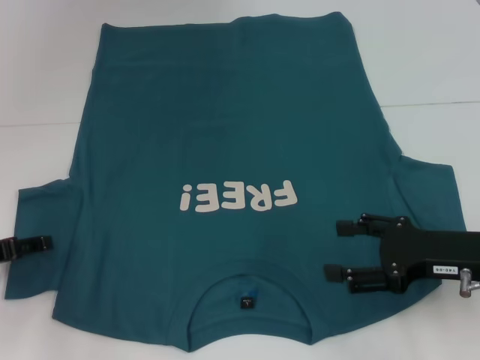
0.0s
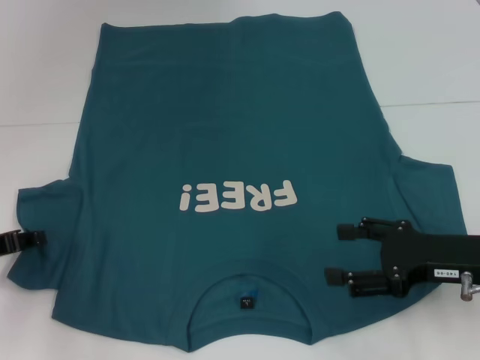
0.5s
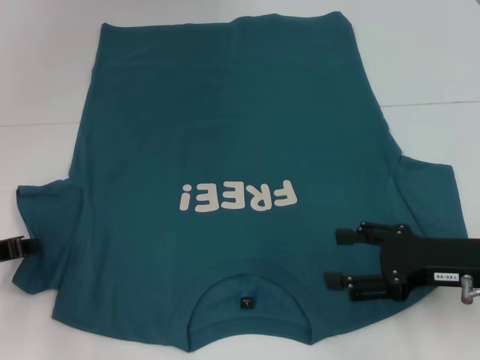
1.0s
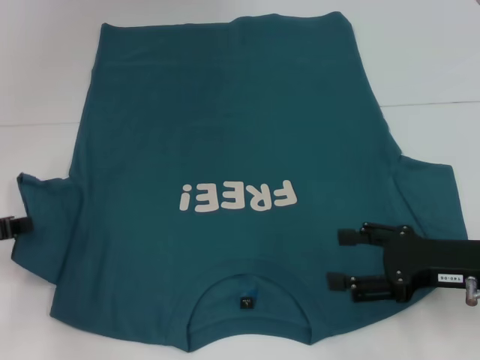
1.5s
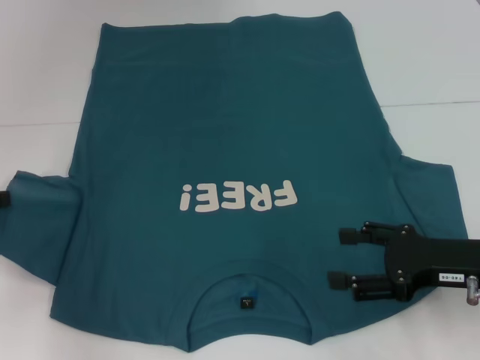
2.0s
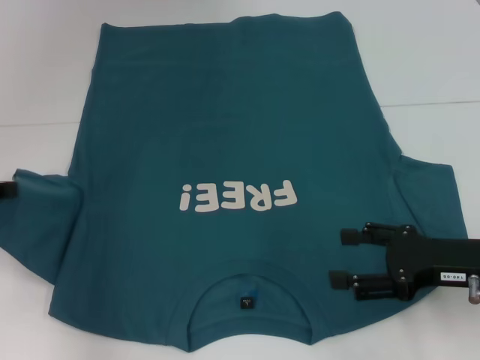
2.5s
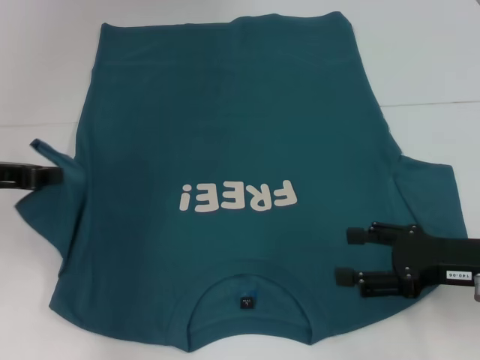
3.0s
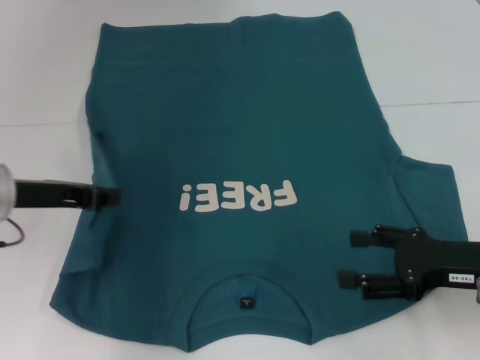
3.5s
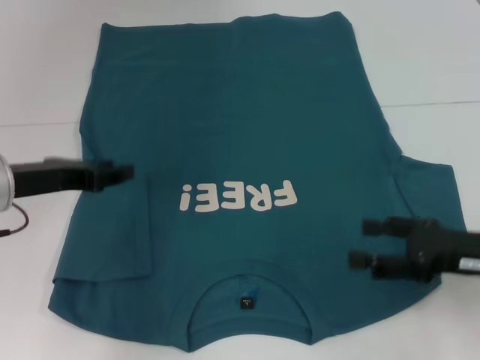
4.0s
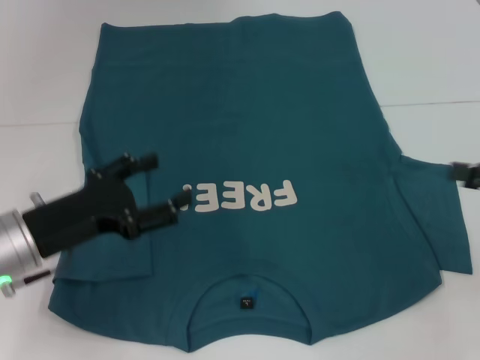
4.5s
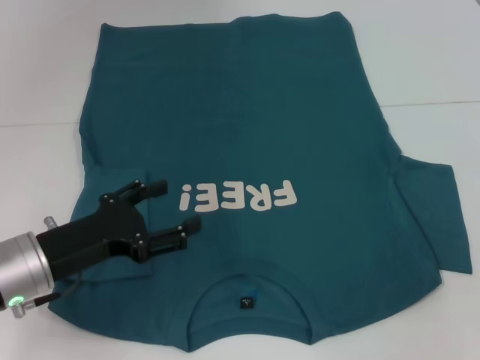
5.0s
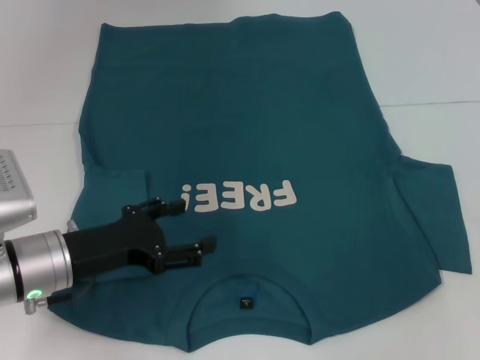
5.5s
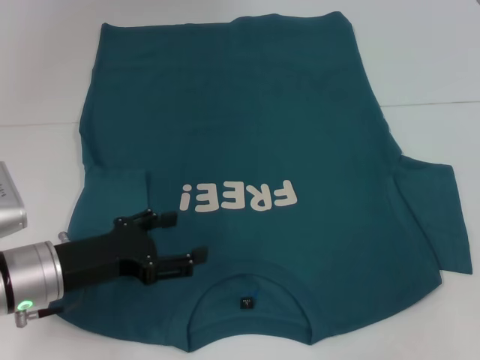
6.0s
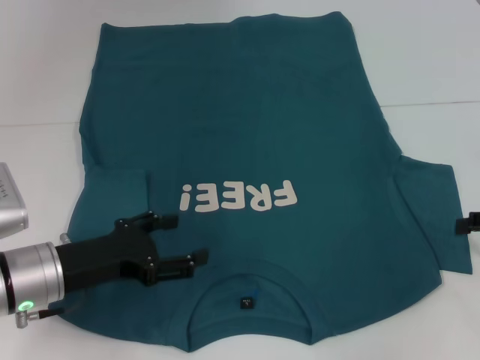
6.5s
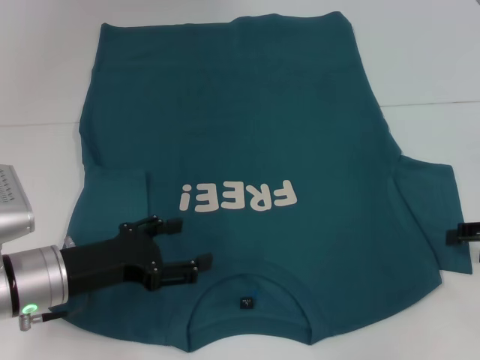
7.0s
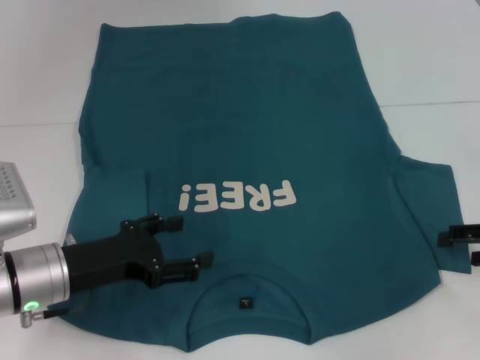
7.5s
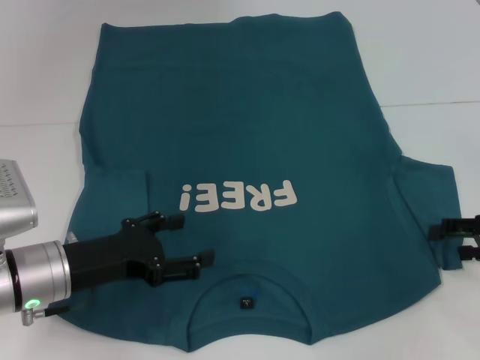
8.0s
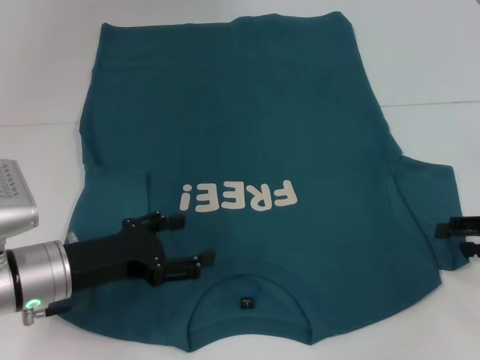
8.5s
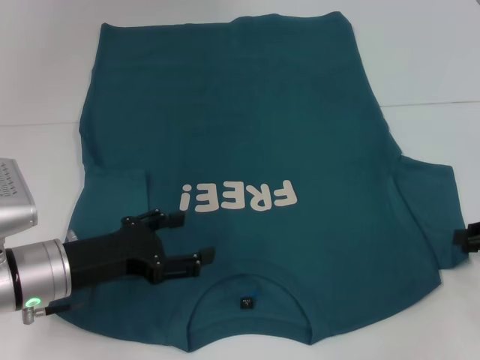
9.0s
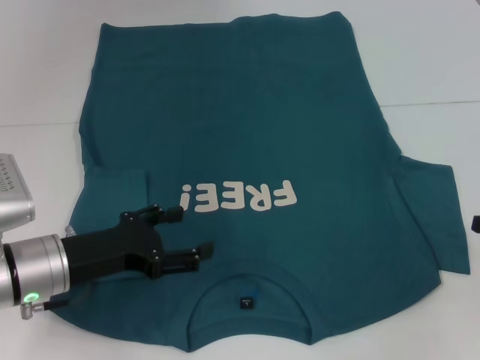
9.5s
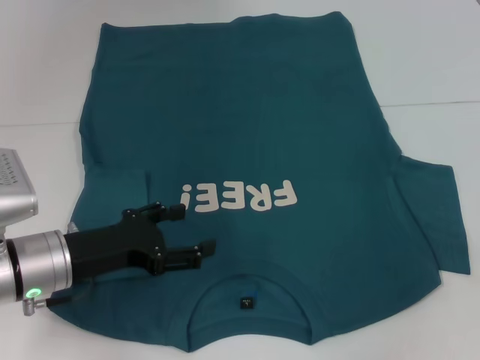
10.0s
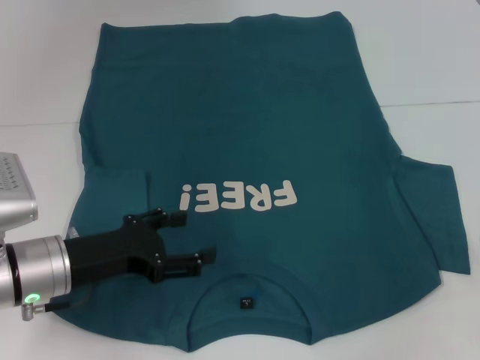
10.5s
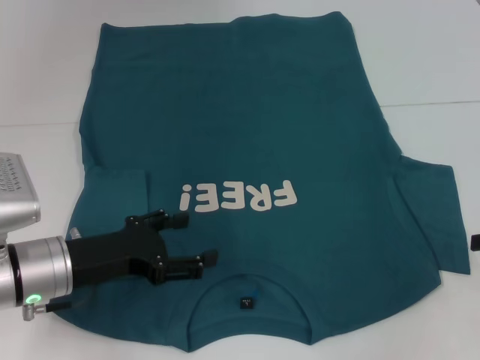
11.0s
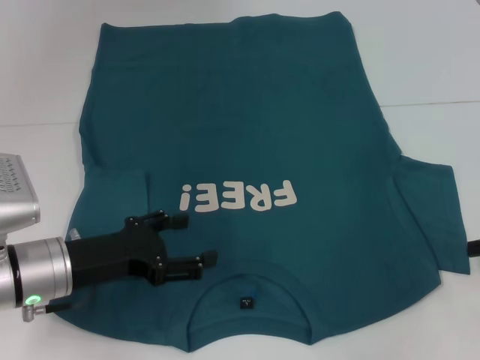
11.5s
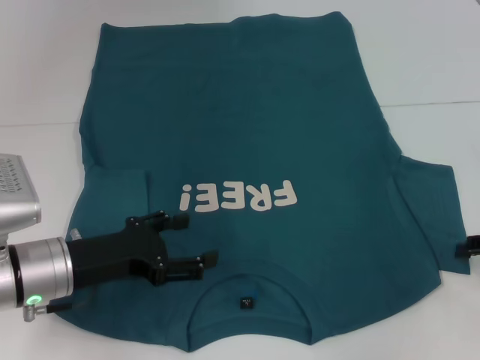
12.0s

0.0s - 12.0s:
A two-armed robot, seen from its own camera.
Step, 0.0s - 3.5s: Fold the bottom left sleeve with your left hand.
0.0s - 2.0s: The left gripper heads upward, covering some 5 cm, and closes its fingers.
2.0s - 4.0s: The left gripper travels to the right by some 10 cm.
4.0s - 6.0s: The left gripper travels downward and backward by roughly 10 cm, and opens up, while the right gripper shifts some 10 cm to the right.
6.0s - 8.0s: The right gripper shifts by some 5 cm.
8.0s - 10.0s: The right gripper ends up approximately 5 cm from where it was, and closes up.
10.0s - 12.0s: The right gripper opens its fingers.

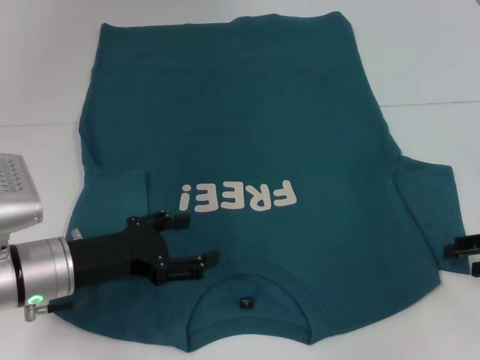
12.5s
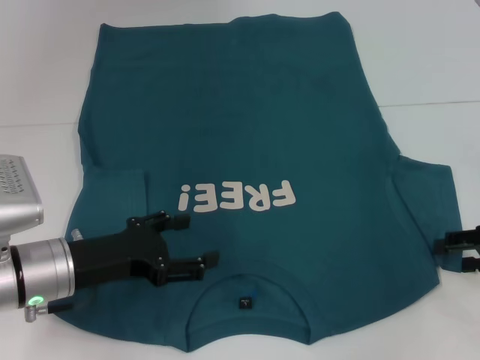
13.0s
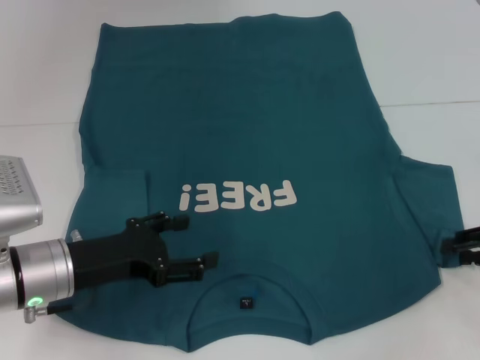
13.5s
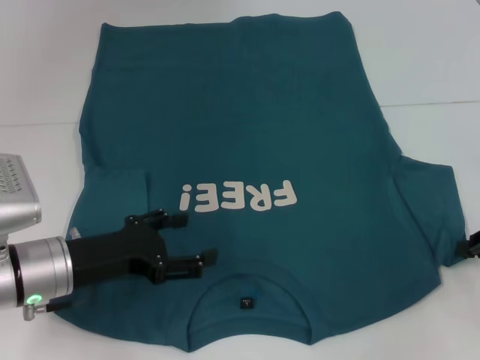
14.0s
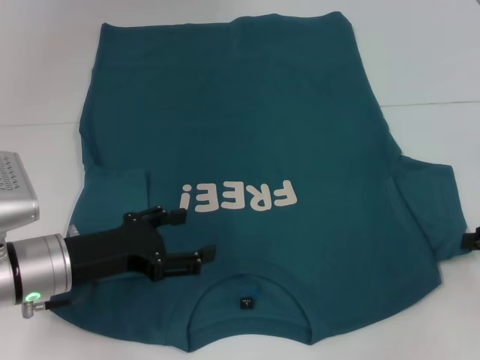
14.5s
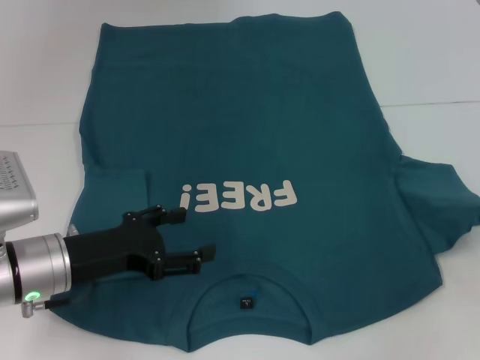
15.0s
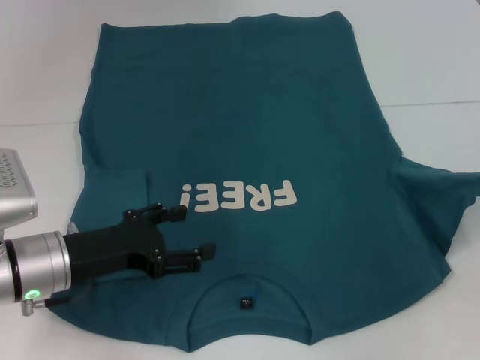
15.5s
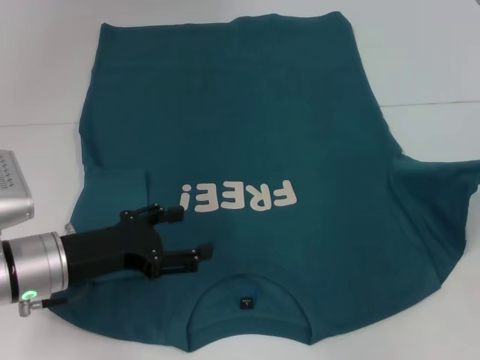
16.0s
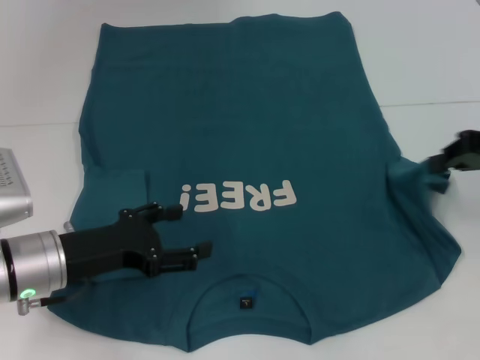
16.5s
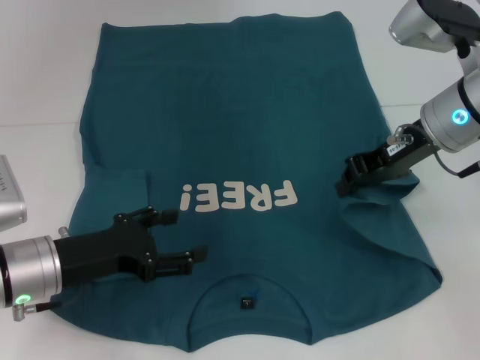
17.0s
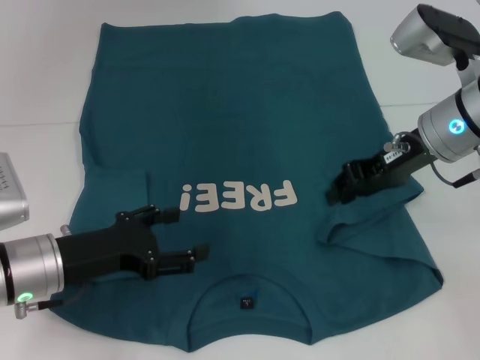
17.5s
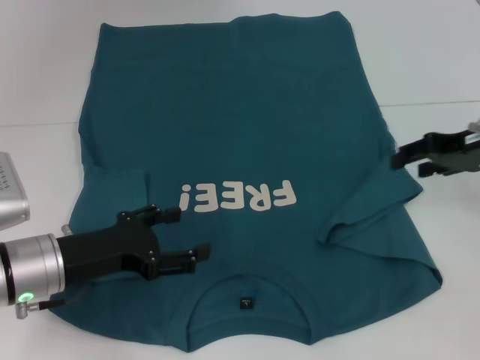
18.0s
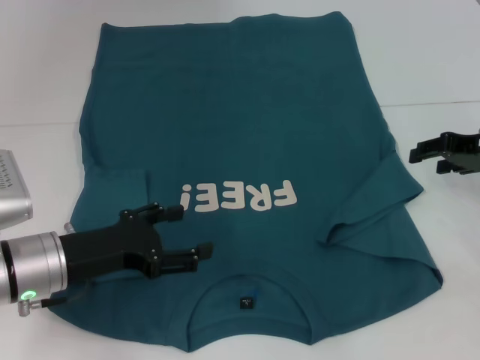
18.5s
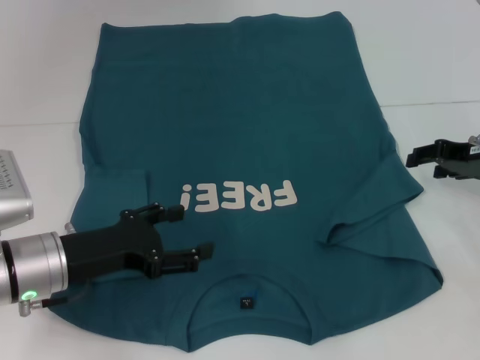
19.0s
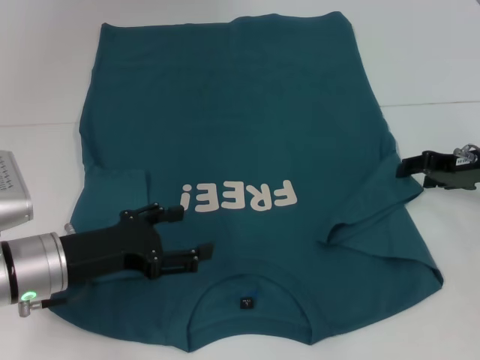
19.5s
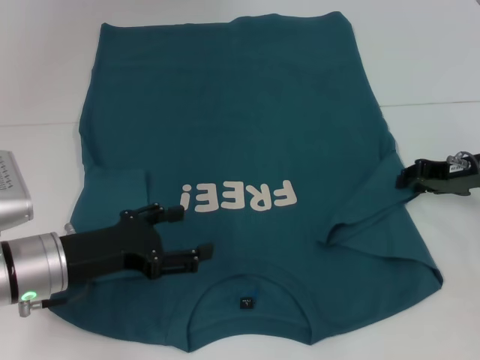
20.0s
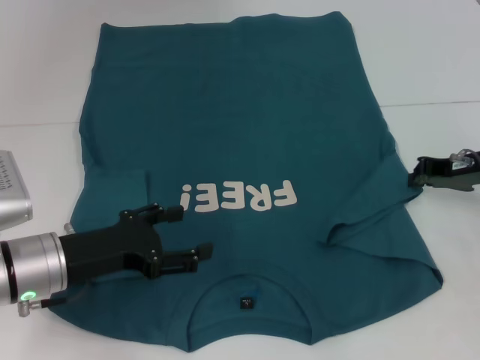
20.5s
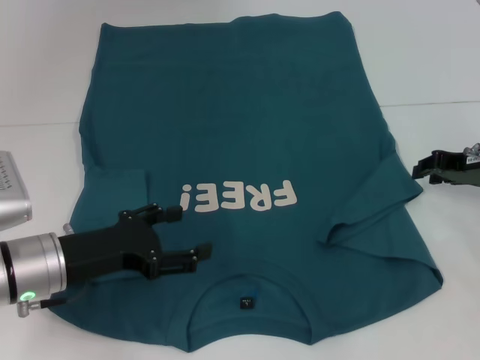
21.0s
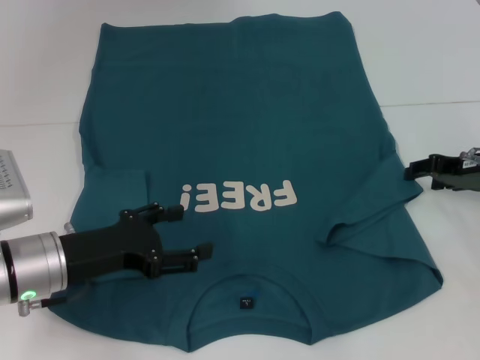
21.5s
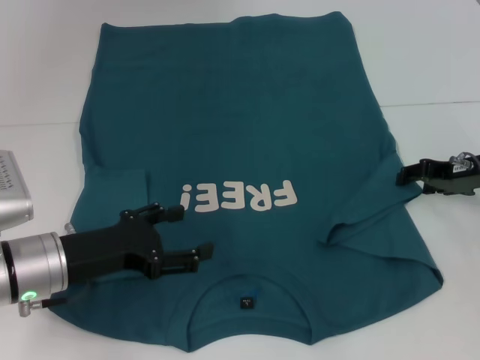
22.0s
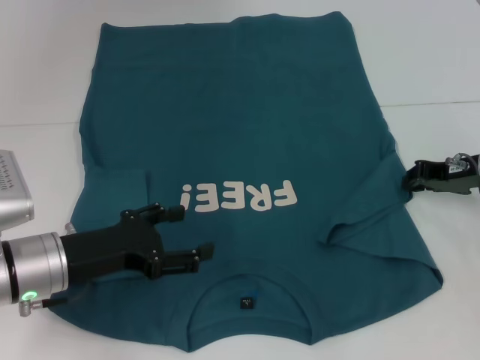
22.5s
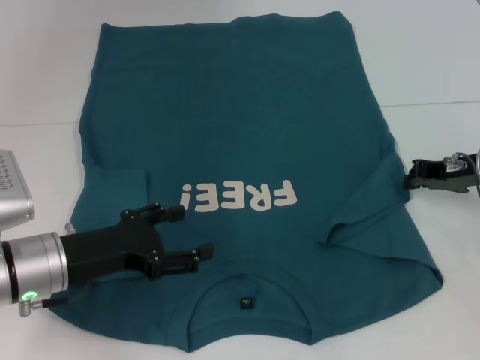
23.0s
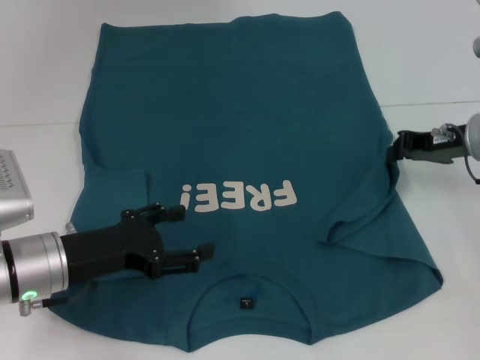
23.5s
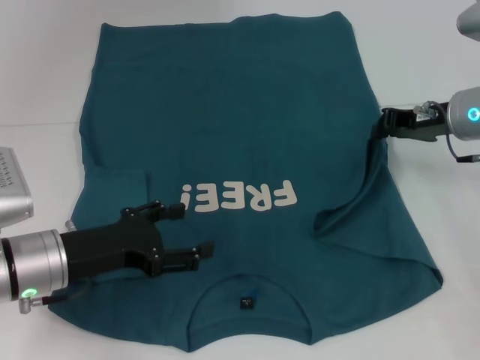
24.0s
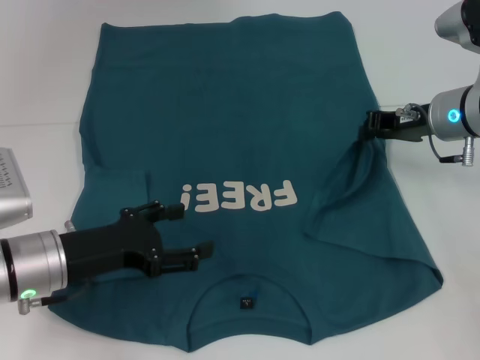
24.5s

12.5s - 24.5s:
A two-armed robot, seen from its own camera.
12.5s - 14.5s: The right gripper closes up.
14.5s - 16.5s: The right gripper shifts approximately 15 cm upward, forward and to the left.
16.5s - 18.5s: The right gripper goes approximately 5 cm downward, travels to the left and back again, about 10 cm each way, and opens its fingers.
18.5s - 20.5s: The right gripper closes its fingers.
20.5s - 22.5s: Both grippers stay about where they are.
22.5s - 24.5s: The right gripper goes about 5 cm to the left, and closes up.

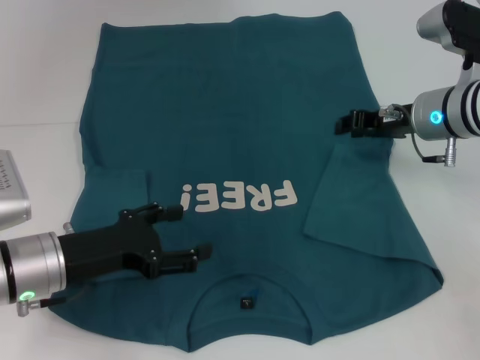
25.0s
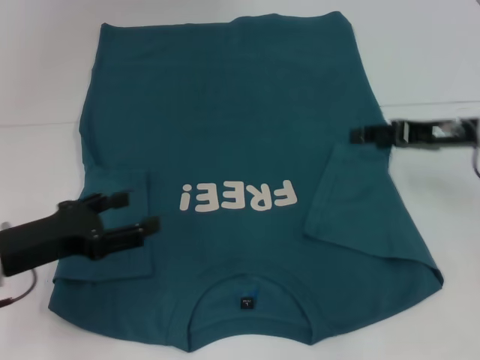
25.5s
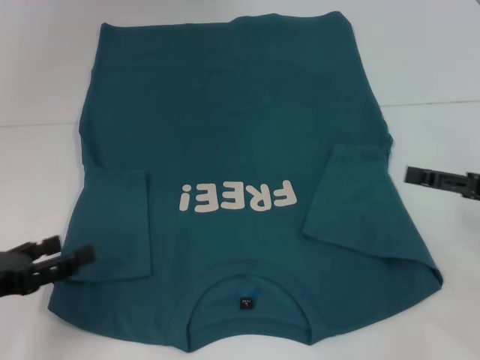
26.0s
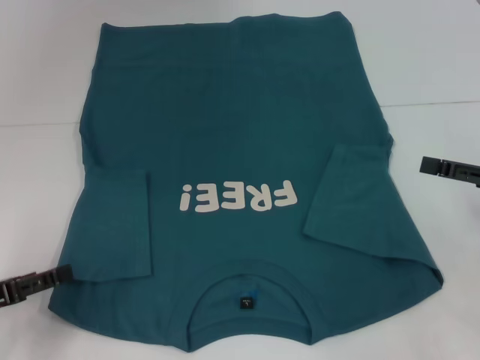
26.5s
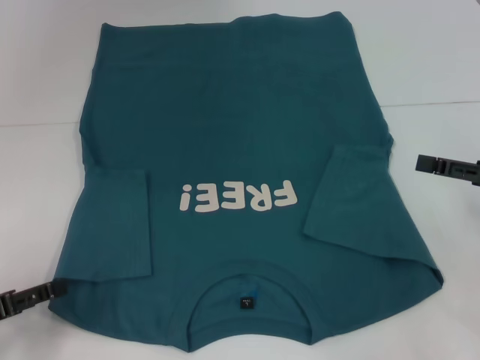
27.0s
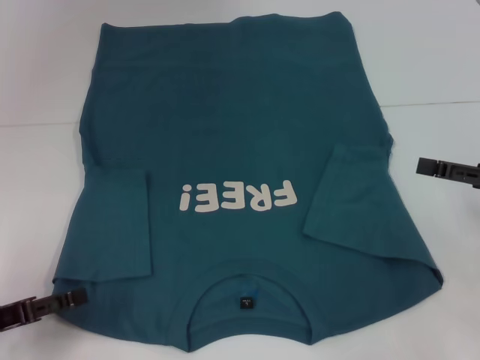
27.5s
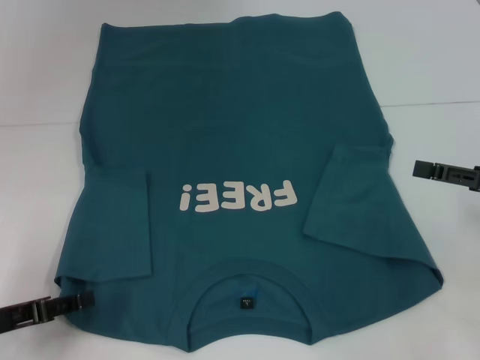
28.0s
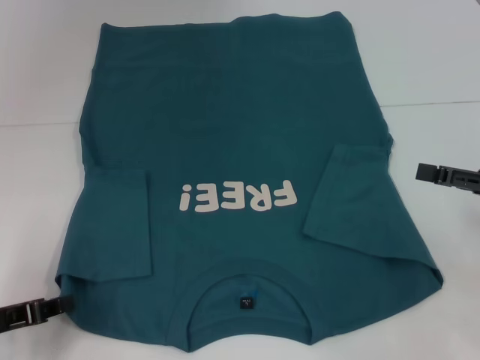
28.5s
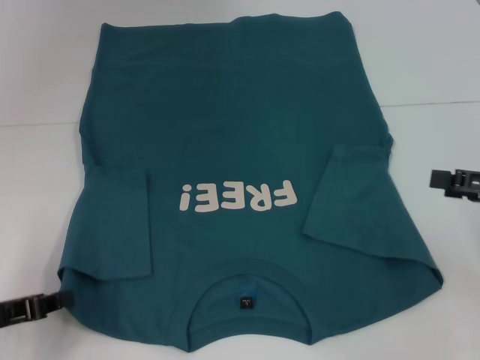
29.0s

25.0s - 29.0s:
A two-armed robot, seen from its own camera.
Step, 25.5s - 28.5s: Grab the bottom left corner with your left hand.
25.0s - 27.0s: The left gripper travels to the left and backward by about 15 cm, while the right gripper travels backward and to the right by roughly 20 cm, and opens.
27.0s - 29.0s: The left gripper closes up.
